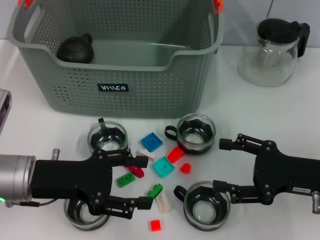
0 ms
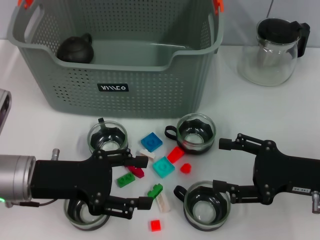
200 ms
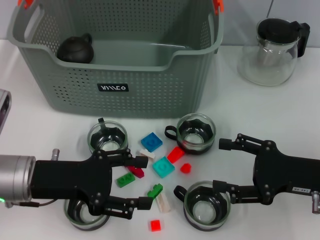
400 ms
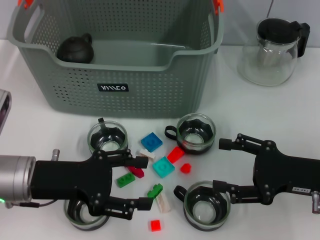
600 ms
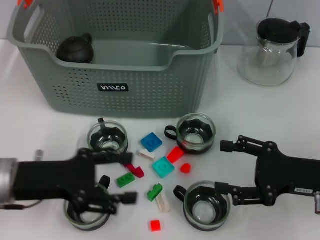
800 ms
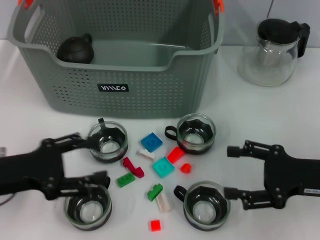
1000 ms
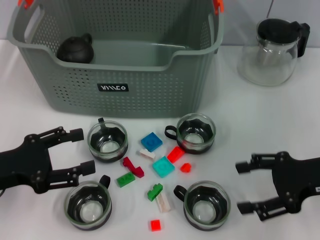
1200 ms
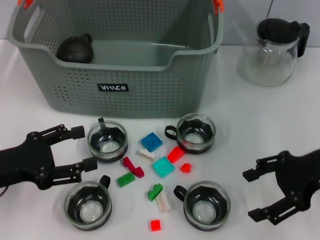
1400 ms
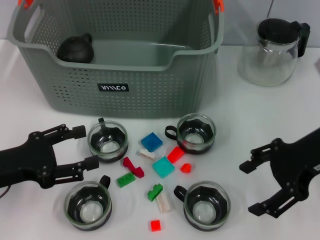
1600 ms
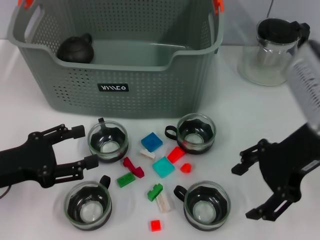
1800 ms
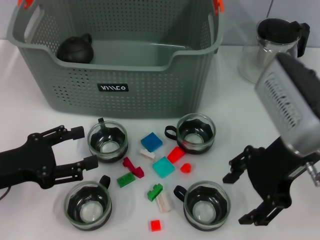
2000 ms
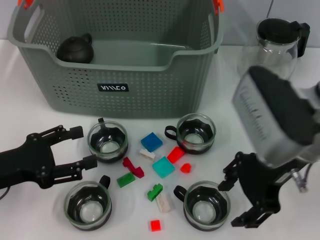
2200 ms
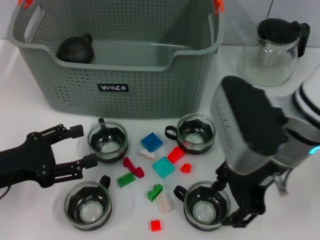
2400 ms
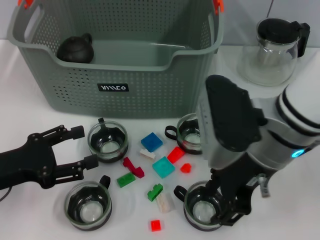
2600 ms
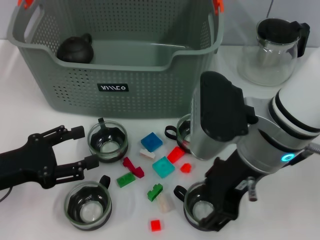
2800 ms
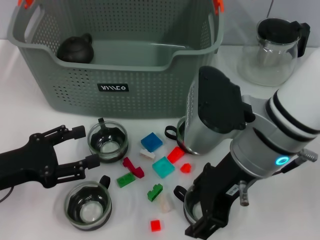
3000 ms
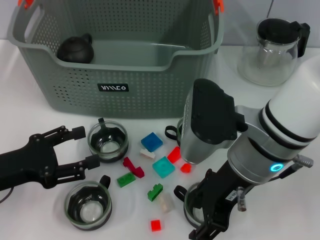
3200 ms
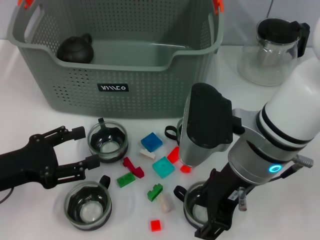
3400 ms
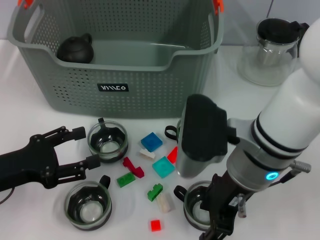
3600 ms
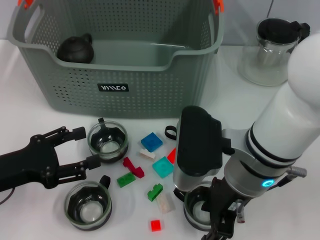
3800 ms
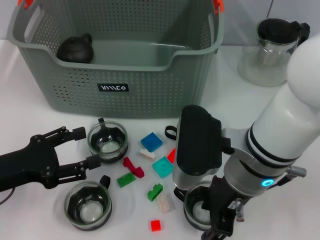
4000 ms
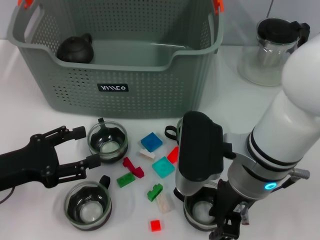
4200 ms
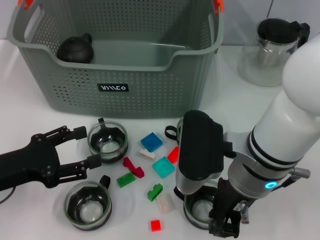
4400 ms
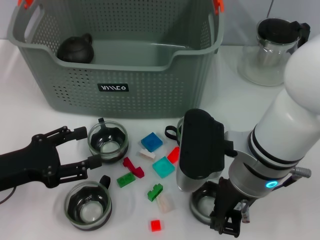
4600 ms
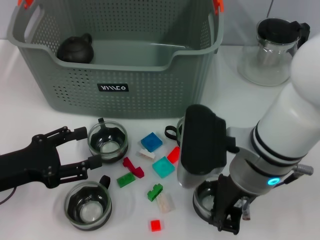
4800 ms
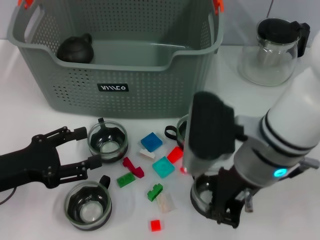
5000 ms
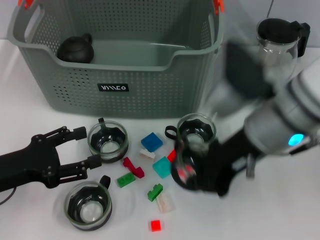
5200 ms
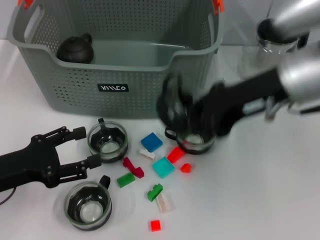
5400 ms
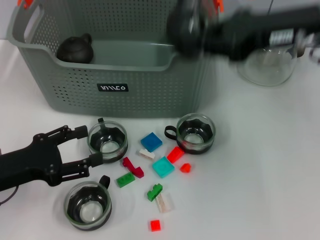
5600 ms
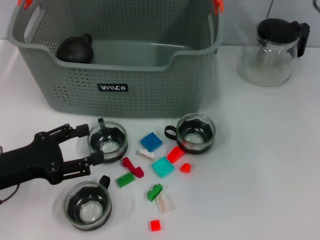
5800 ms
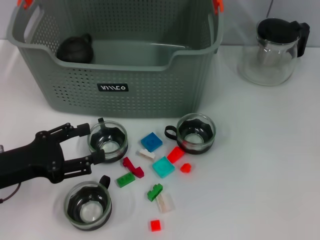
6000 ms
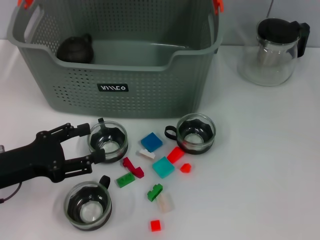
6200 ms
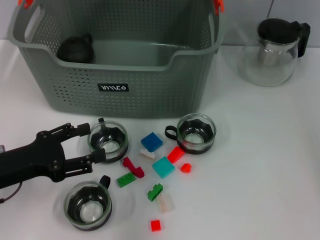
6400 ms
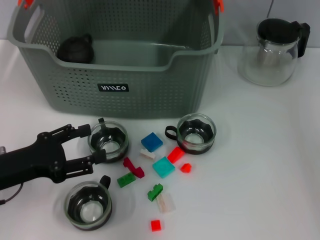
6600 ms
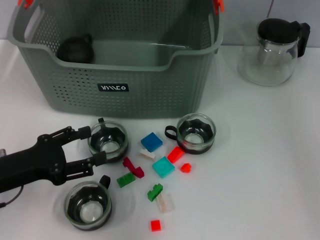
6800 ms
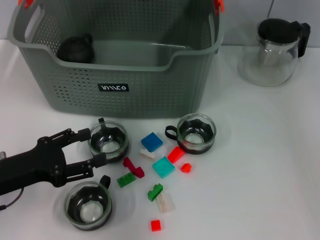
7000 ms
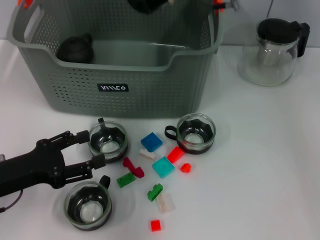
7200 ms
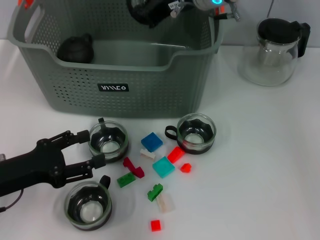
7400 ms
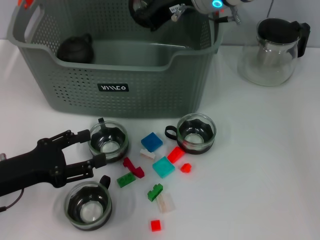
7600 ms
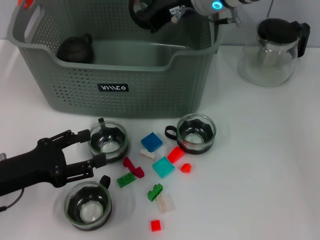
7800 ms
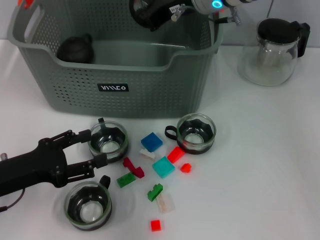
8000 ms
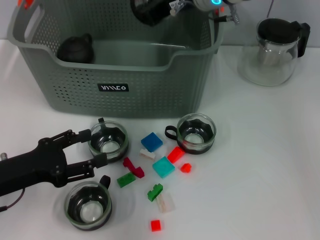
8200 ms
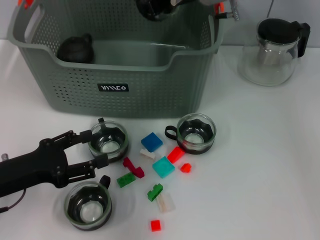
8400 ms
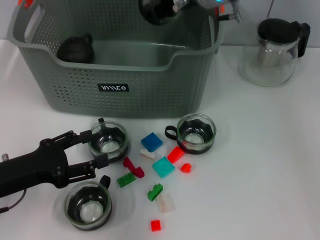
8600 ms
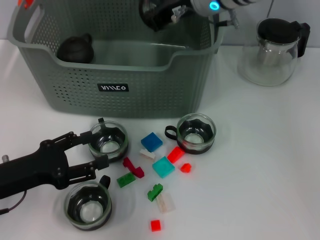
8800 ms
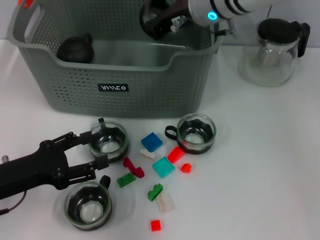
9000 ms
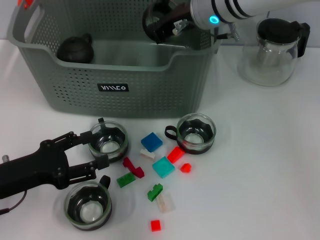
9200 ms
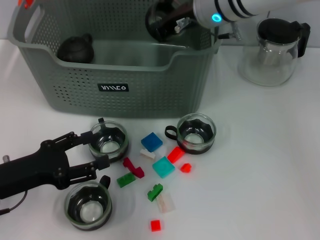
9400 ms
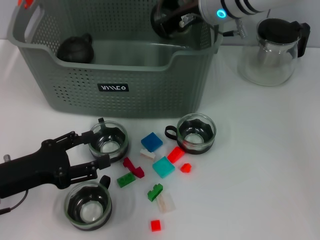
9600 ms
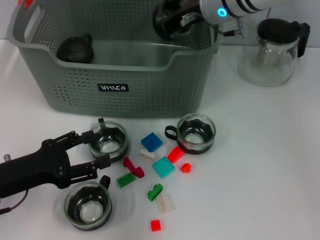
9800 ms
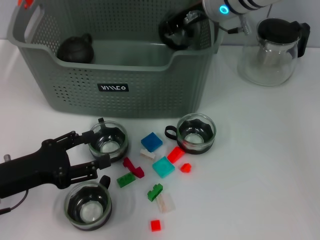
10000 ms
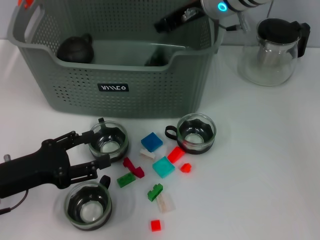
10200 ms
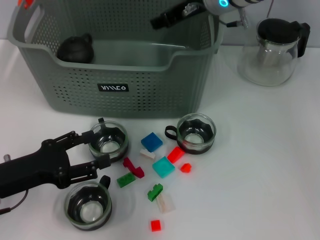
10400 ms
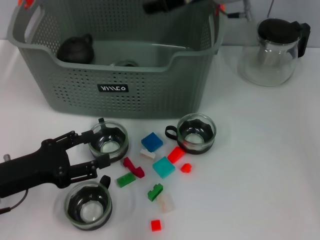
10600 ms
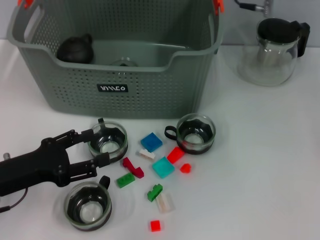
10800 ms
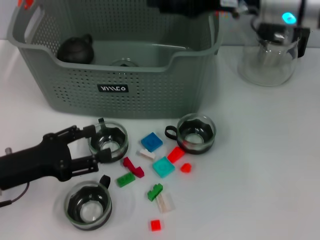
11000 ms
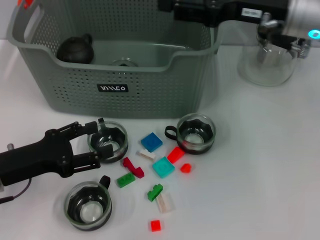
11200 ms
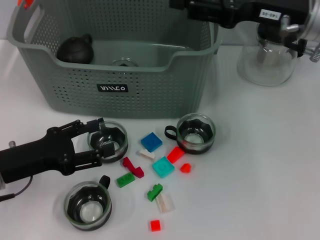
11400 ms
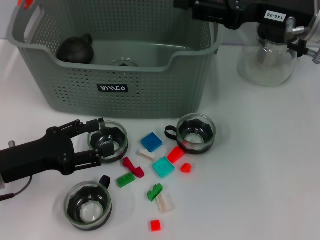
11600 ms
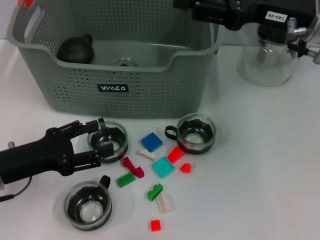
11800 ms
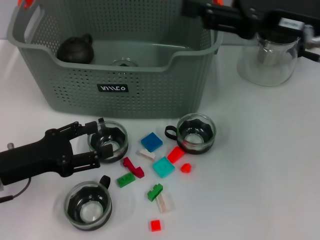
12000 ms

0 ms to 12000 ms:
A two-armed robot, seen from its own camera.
Task of the whole recording: pick up the teacup on the table and place it into the storage bin, pick up the block on the table and place it into the storage bin.
Step, 0 ms to 4400 ms: Grasp the cup with right gripper.
Step, 4800 ms to 10200 ms: Place the cup in the storage box with right gripper.
0 ms to 1600 ms: The right gripper is displaced upward and forward by approximately 10 cm; the left gripper goes some 5 cm to the left.
1600 ms to 3000 ms: The right gripper travels to the left by approximately 15 cm.
4400 ms to 6000 ms: The right gripper travels upward, forward and to the right by roughly 25 cm, and closes up.
6000 ms to 7600 ms: The right gripper heads to the left, downward and forward, covering about 15 cm.
7600 ms to 9000 ms: The grippers make only small movements.
9000 ms to 10400 ms: The right gripper opens its fingers.
10400 ms to 12000 ms: The right gripper shifts roughly 15 cm to the right and backward, and opens up.

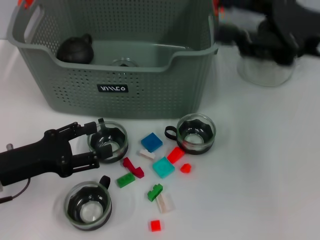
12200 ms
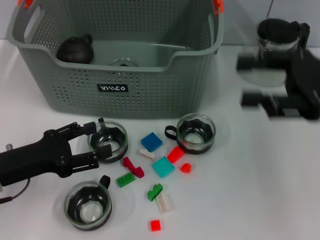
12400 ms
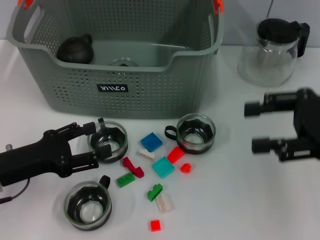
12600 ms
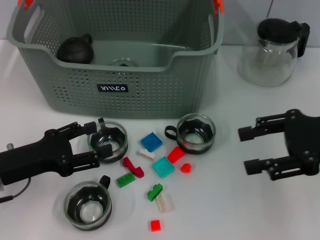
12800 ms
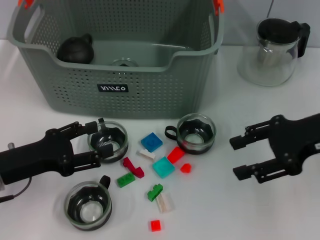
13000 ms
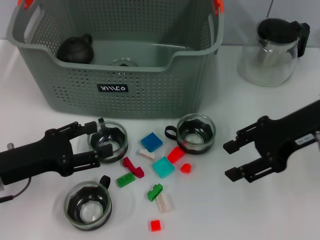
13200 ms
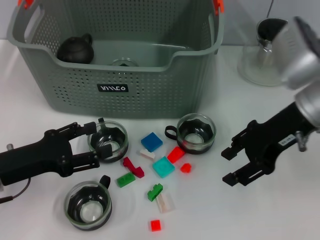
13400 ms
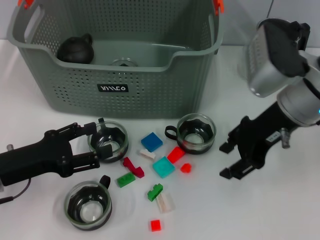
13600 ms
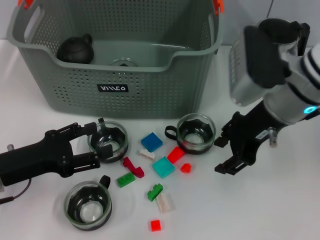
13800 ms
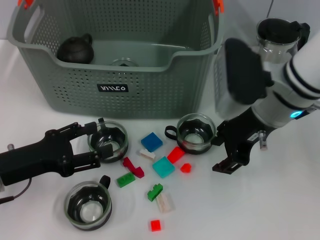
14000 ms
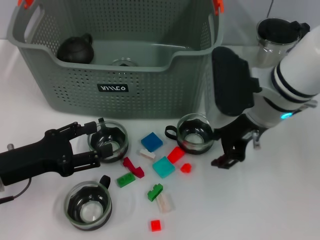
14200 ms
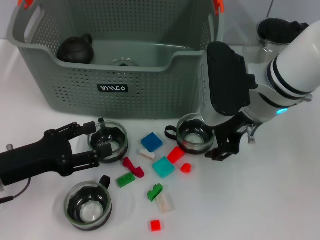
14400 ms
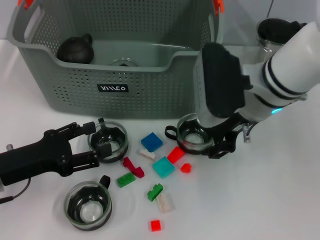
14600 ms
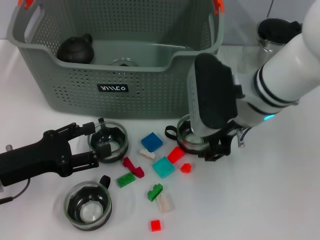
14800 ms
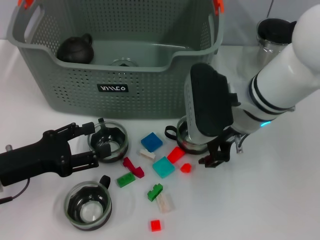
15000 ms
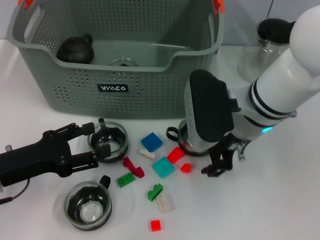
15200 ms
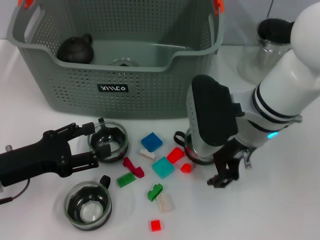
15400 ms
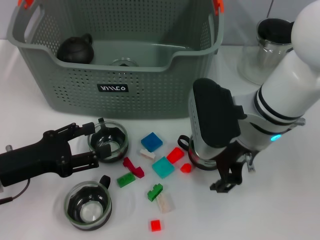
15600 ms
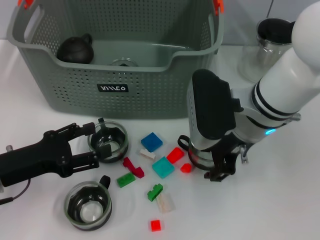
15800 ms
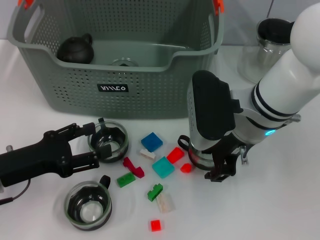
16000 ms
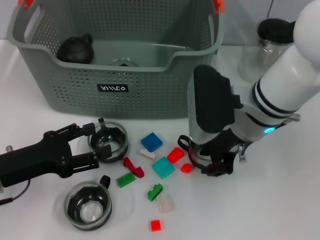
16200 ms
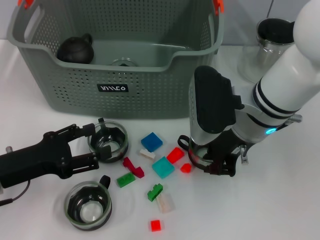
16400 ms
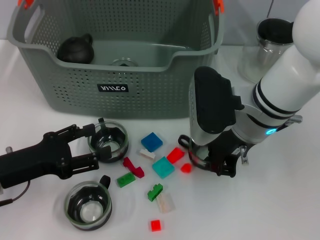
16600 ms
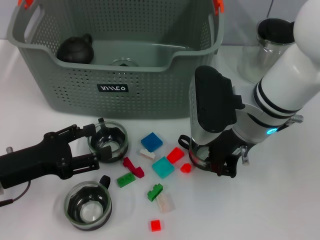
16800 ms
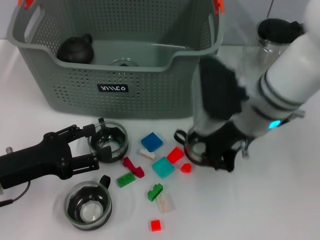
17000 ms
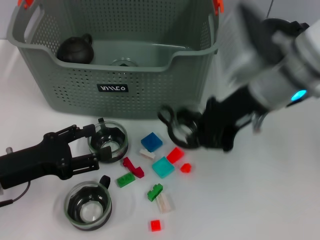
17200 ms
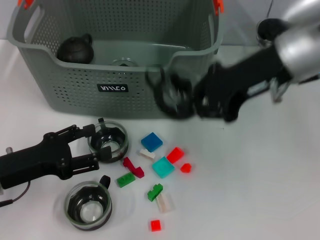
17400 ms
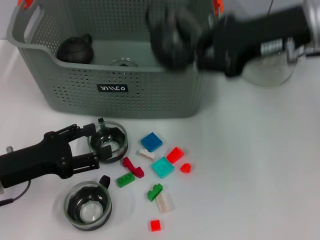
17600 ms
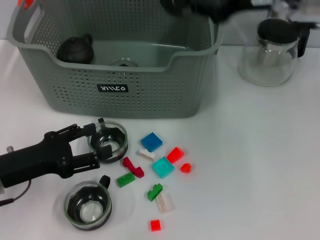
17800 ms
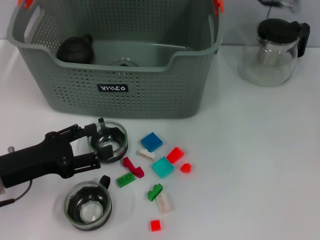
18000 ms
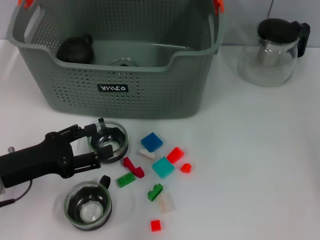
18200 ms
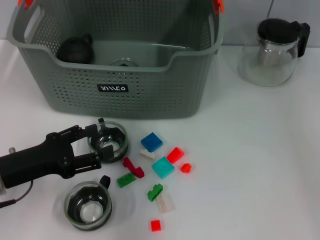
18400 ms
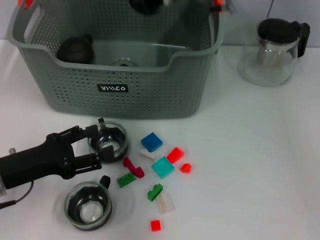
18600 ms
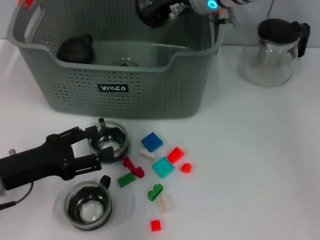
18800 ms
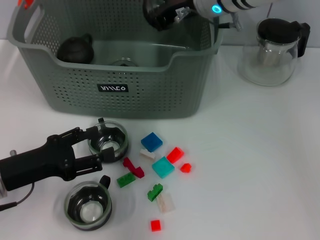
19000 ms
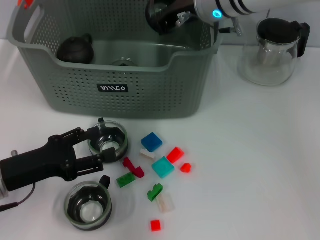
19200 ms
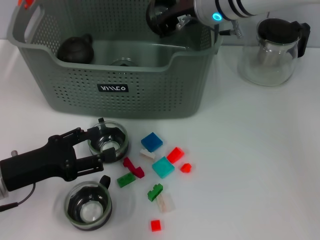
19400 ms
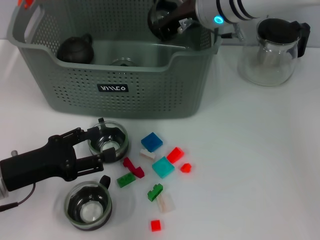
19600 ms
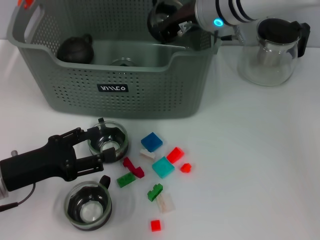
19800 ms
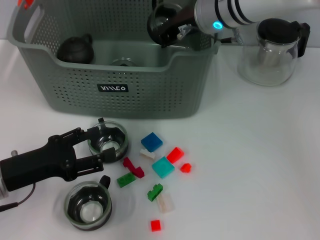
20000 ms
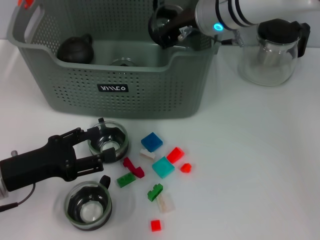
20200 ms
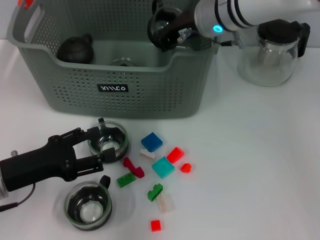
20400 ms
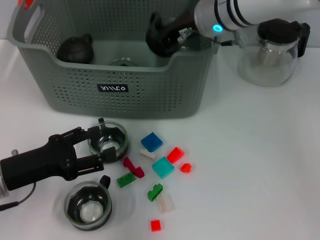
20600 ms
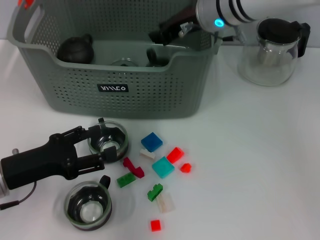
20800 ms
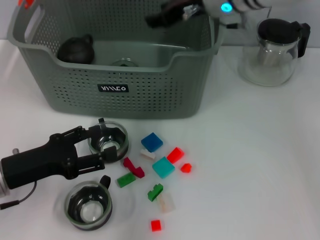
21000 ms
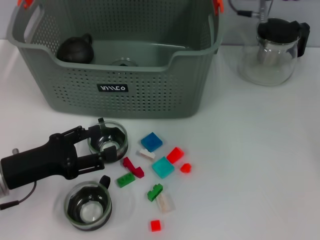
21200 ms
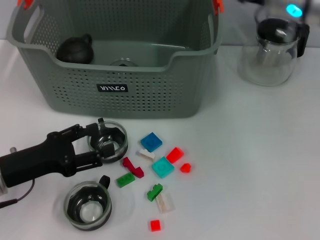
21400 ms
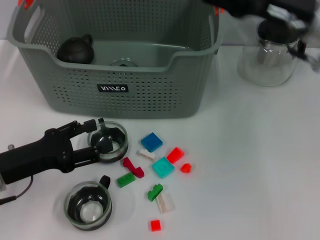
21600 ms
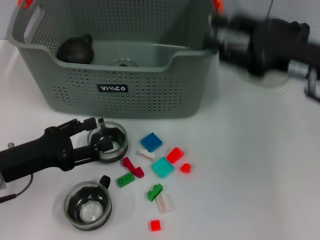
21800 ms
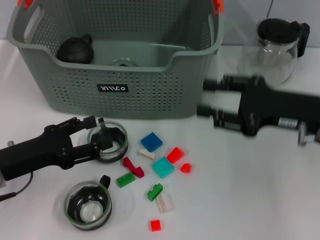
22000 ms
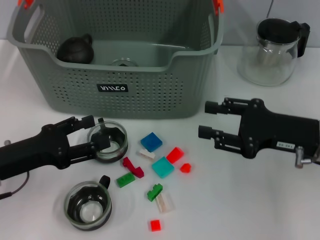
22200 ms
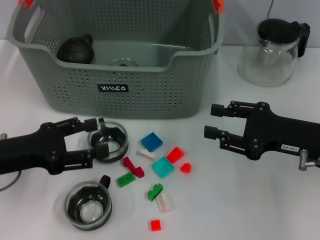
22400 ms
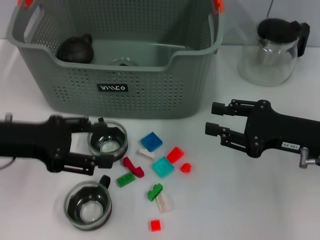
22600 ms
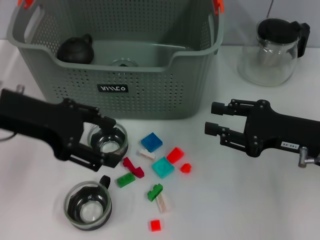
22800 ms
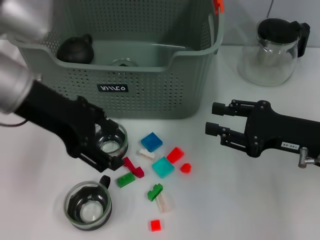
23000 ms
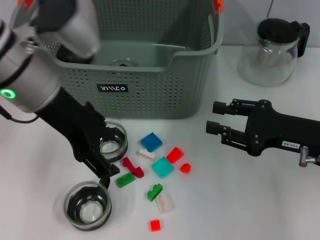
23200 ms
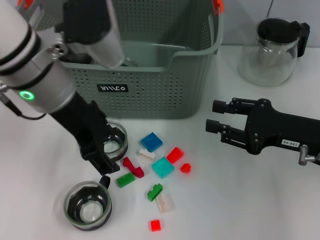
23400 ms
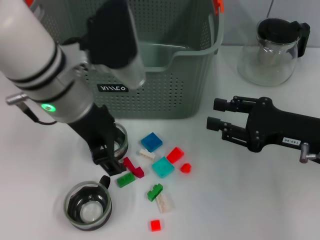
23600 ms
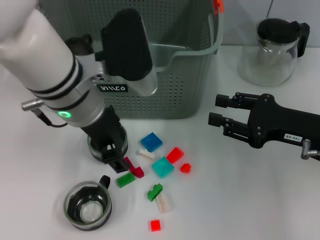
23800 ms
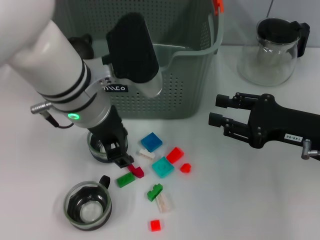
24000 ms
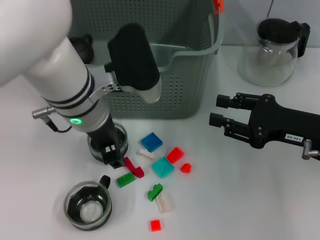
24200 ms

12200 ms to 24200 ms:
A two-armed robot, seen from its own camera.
Task of the whole recording: pick up the teacup on the table and place it into the storage bin, pick up the block on the table and place it into the storage bin.
Step, 12200 ms to 16600 ms: Grasp the cup with right gripper.
Step, 16800 ms to 21000 ms: Place the cup in the storage box with right gripper.
12200 ms to 13800 ms: The right gripper moves to the left, about 10 cm.
13800 ms to 15200 ms: The right gripper moves some 5 cm.
15200 ms to 16600 ms: The right gripper closes its fingers.
16600 ms to 18200 ms: The right gripper is displaced upward and forward by some 15 cm.
18200 ms to 19800 ms: The right gripper is displaced downward by approximately 10 cm.
19800 ms to 21200 ms: The right gripper moves approximately 5 cm, and opens its fingers.
21200 ms to 22600 ms: The right gripper goes some 25 cm backward, downward and to the right, while the left gripper is displaced upward by some 10 cm.
22600 ms to 24200 ms: The left gripper is displaced to the right by some 15 cm.
